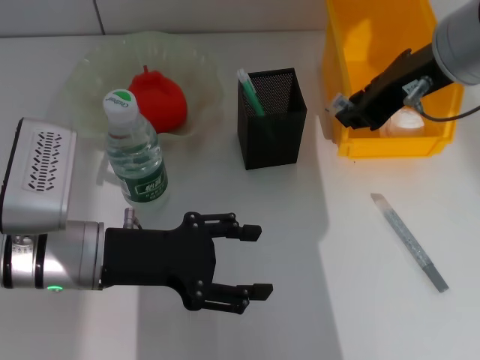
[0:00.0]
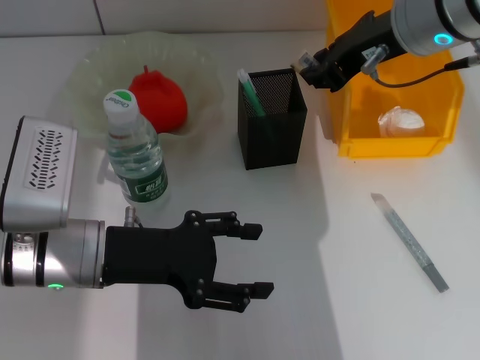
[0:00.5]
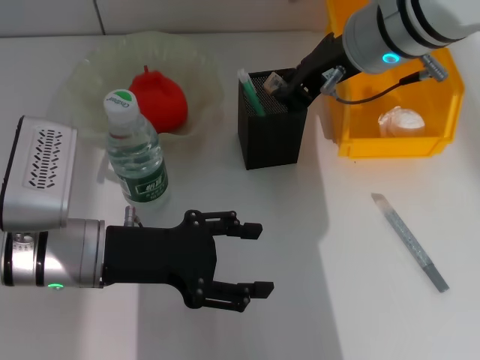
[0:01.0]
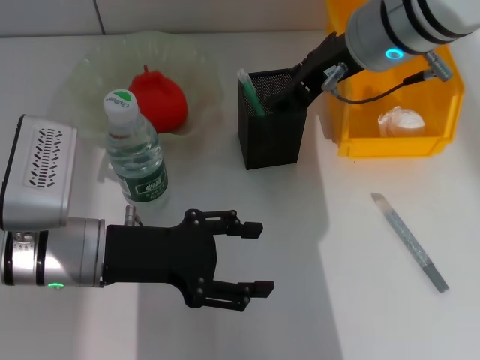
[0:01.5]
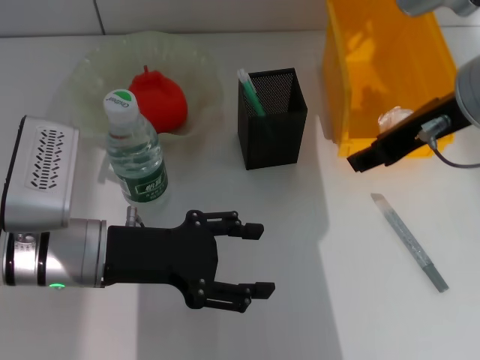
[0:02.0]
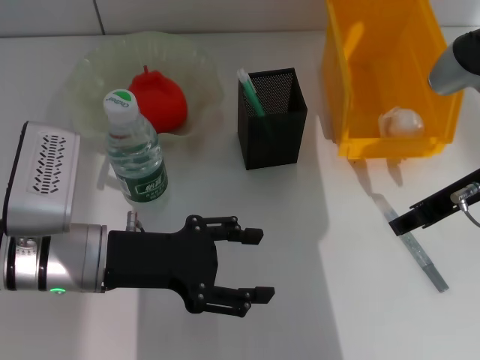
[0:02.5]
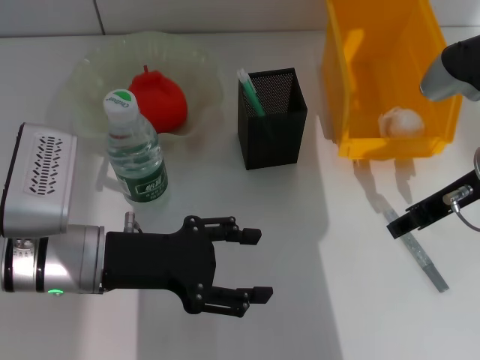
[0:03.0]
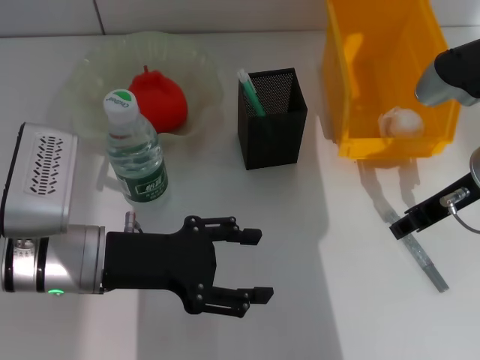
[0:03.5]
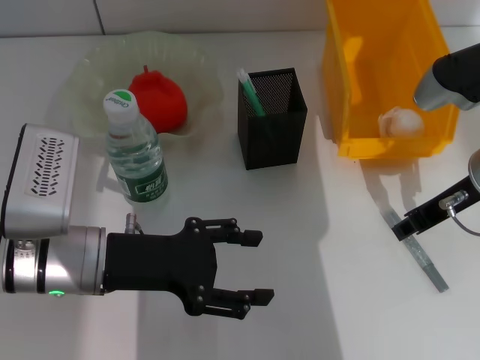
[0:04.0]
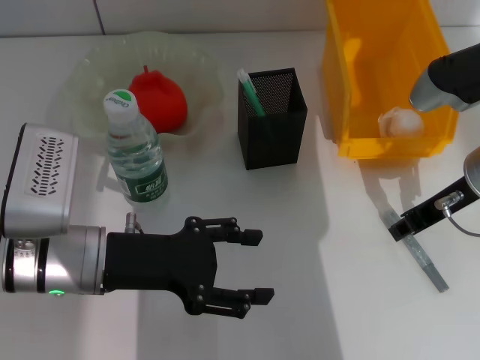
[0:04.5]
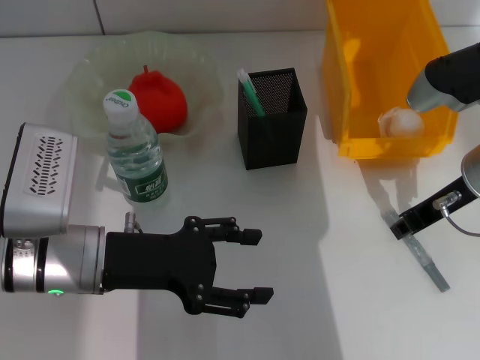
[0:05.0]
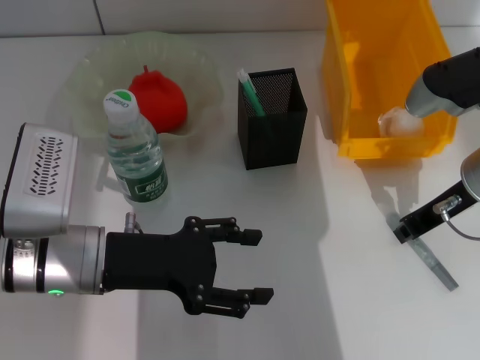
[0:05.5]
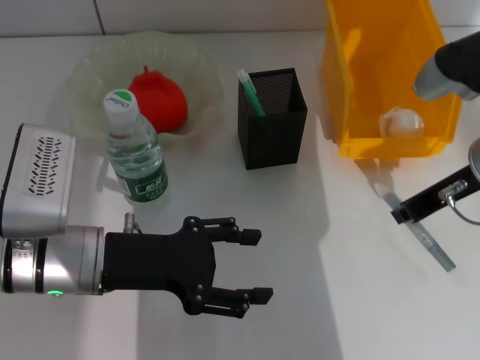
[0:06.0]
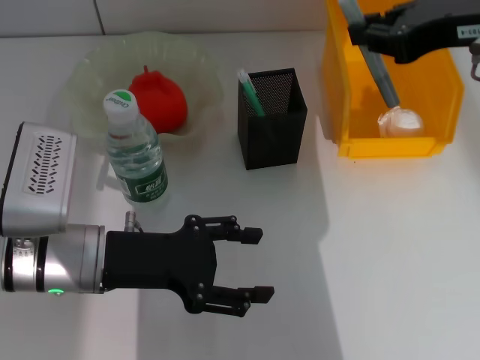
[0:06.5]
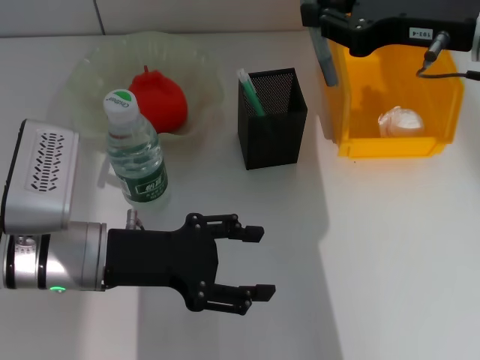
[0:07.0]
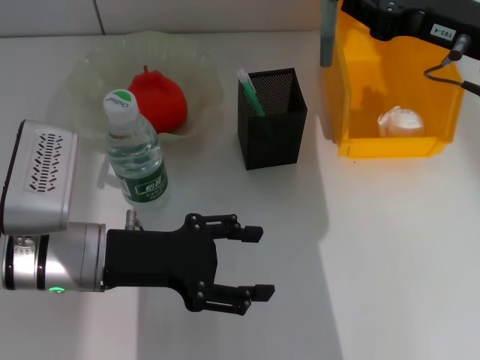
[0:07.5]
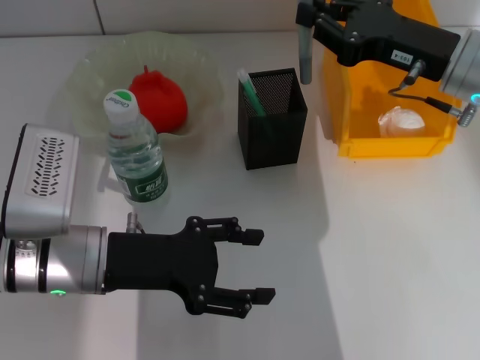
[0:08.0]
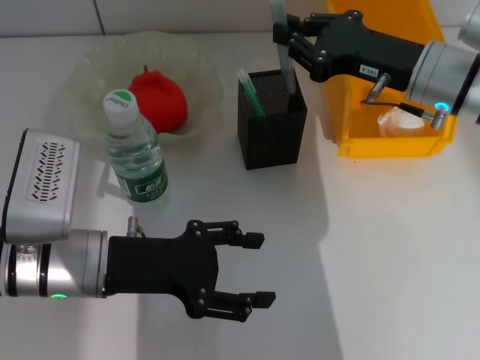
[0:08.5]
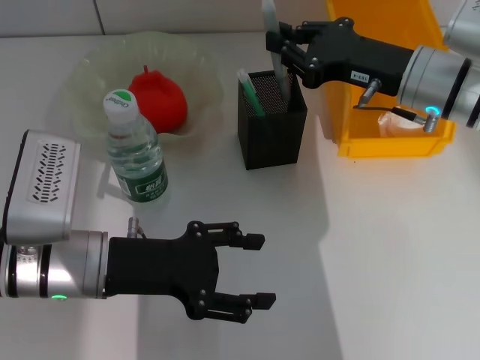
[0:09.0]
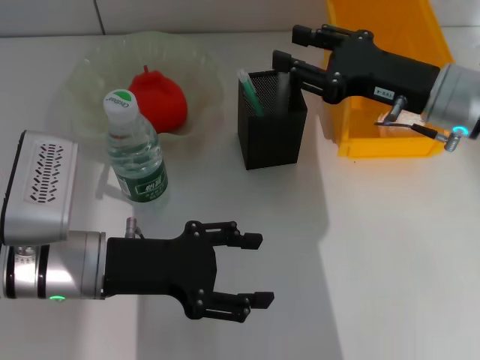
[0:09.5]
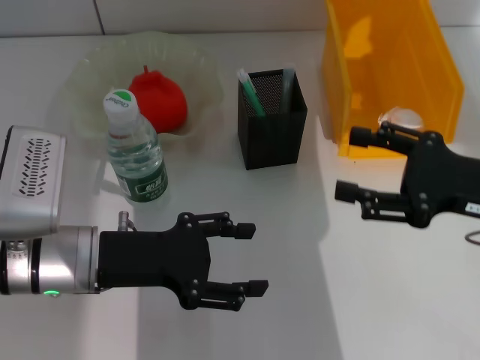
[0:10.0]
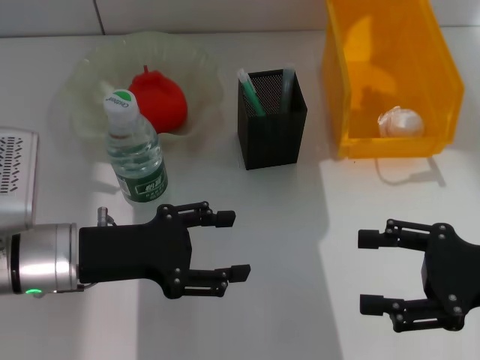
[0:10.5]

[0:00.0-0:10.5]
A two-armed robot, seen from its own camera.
Step, 0:02.0 to 0:05.5: Grab the gray glue with the right hand.
Step, 0:06.0 to 0:09.0: Place the gray glue into the pen holder with the right hand.
0:00.0 to 0:02.0: The right gripper opens up.
0:02.0 to 0:04.0: The right gripper goes approximately 10 cm downward.
0:04.0 to 0:06.5: The right gripper travels upward by about 15 cm.
0:06.5 to 0:08.5: The right gripper is displaced downward and forward by roughly 15 cm.
0:08.5 to 0:10.5: The right gripper moves backward and to the right, approximately 20 cm, and opens up.

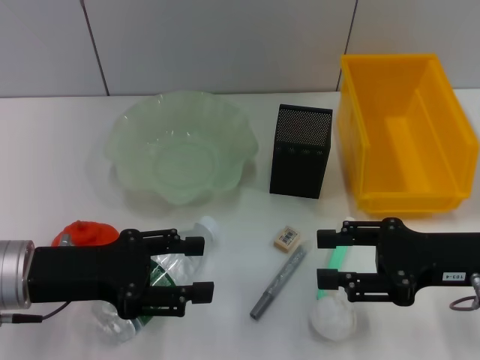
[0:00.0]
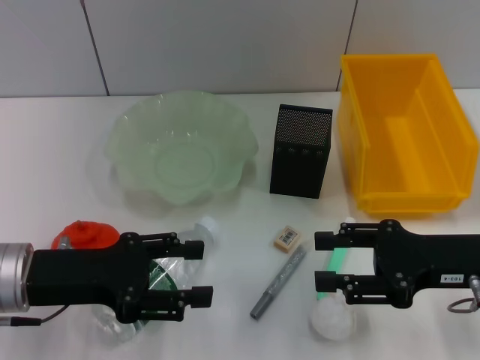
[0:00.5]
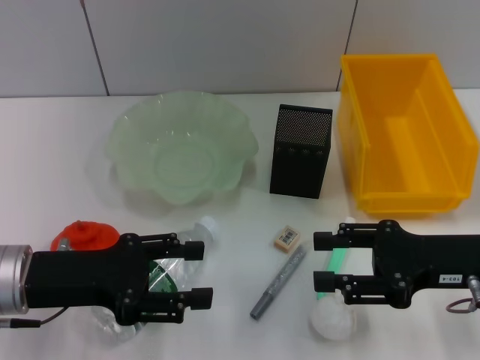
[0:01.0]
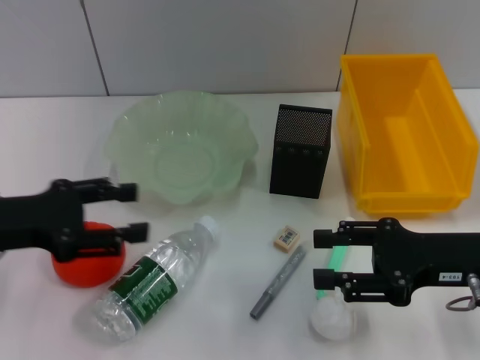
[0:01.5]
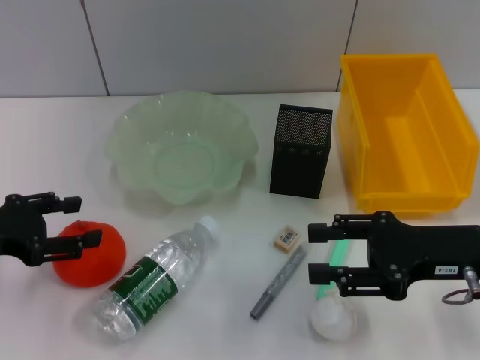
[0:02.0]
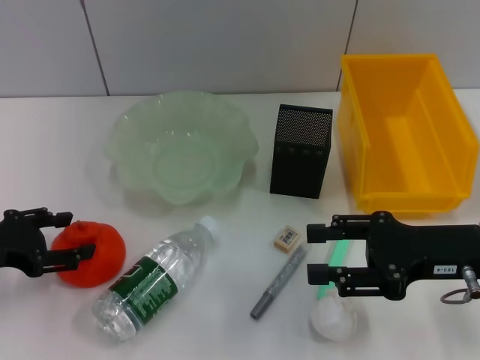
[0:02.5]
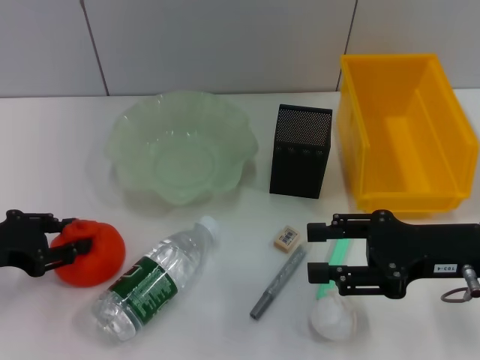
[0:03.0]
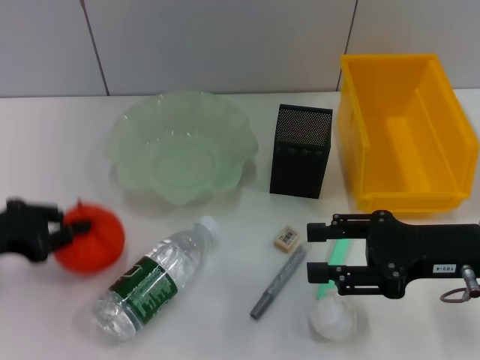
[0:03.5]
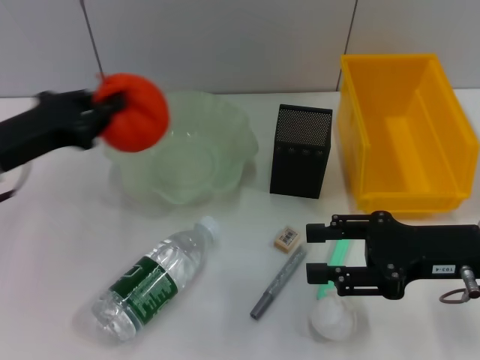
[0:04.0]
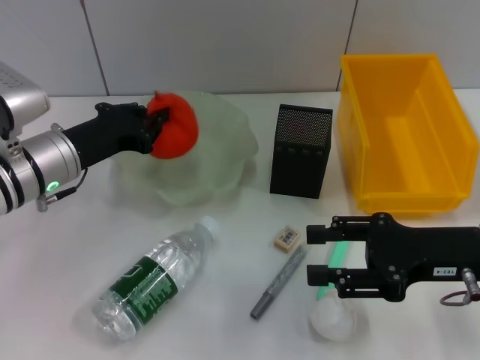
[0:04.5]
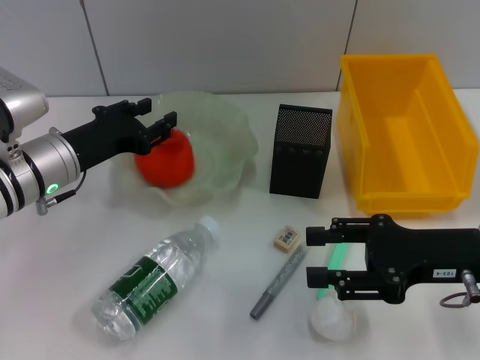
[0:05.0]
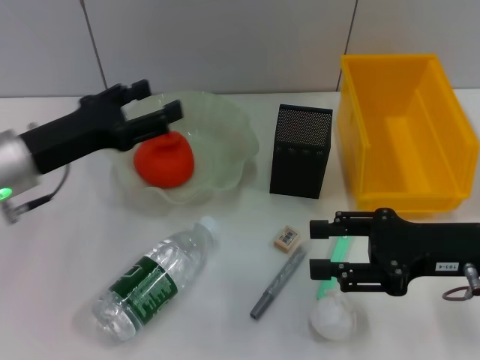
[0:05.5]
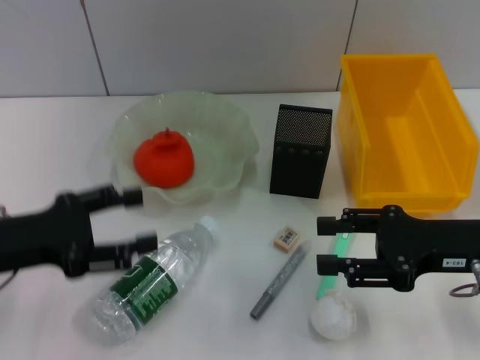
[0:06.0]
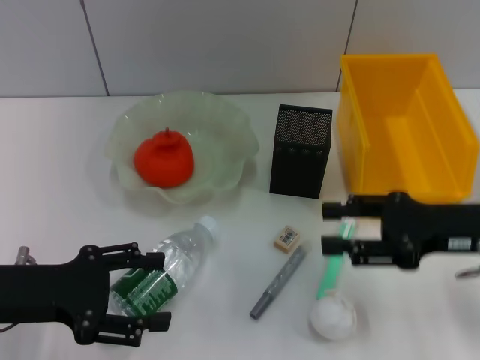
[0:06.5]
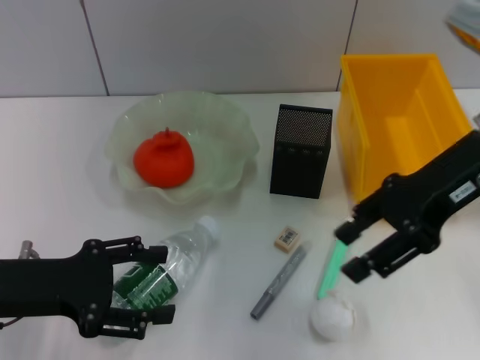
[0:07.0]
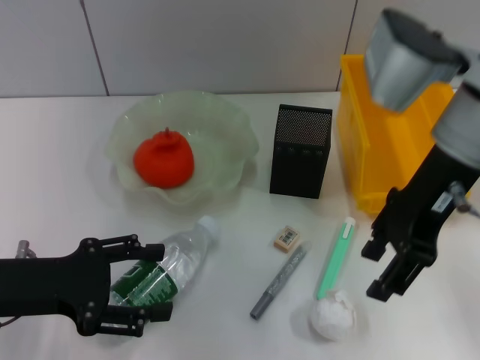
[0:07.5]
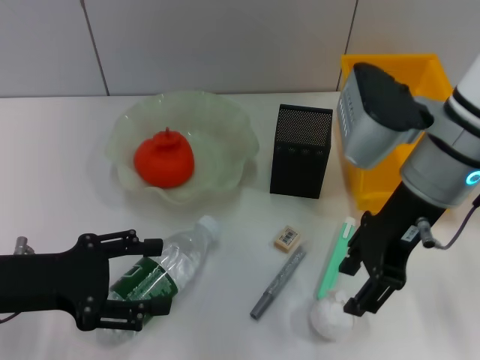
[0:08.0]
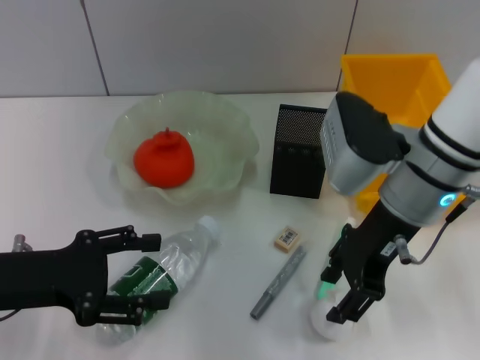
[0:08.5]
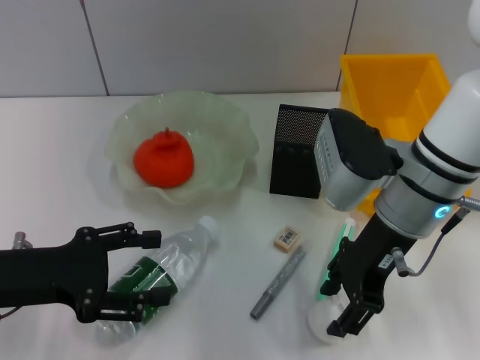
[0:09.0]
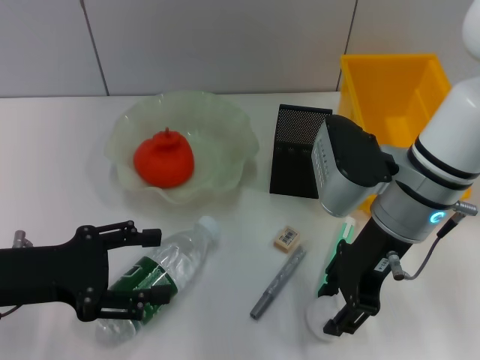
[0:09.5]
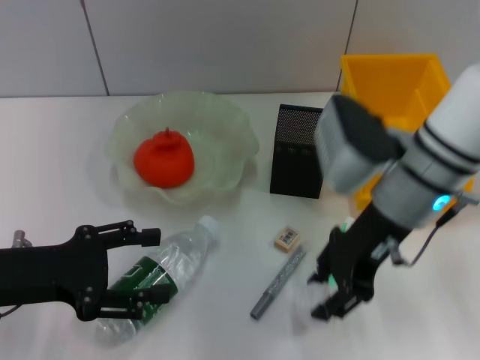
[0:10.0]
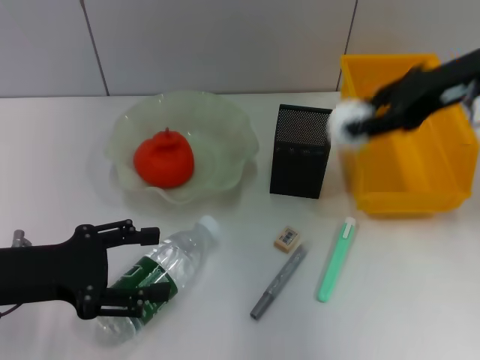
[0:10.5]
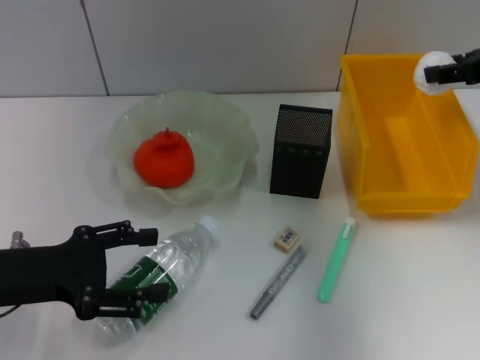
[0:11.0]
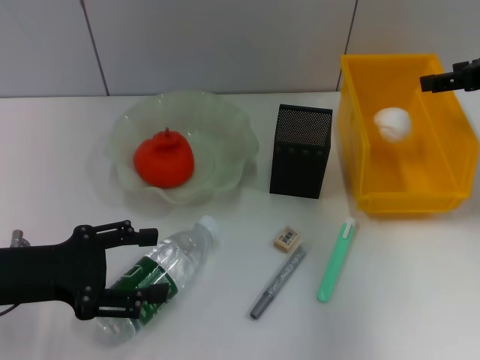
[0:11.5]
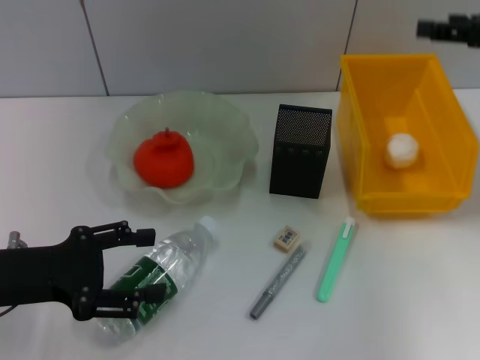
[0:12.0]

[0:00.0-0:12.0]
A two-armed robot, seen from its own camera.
Step, 0:00.0 to 0:03.0: Grab the orange with the left hand.
Step, 0:03.5 to 0:05.0: Place the orange into the fruit bowl with the left hand.
Step, 0:05.5 to 0:09.5: Grab the paper ball with the right hand.
Step, 0:10.0 to 0:11.0: Place the paper ball into the trash can with the right hand.
0:00.0 to 0:02.0: The left gripper shifts some 10 cm to the left.
0:02.0 to 0:04.0: The left gripper moves to the right, roughly 5 cm, and closes its fingers.
0:04.0 to 0:06.0: The left gripper heads backward, covering some 5 cm, and opens its fingers.
0:06.0 to 0:08.0: The right gripper shifts about 15 cm to the left, upward and forward.
0:08.0 to 0:10.0: There are only small adjustments of the grippers.
0:10.0 to 0:12.0: The right gripper shifts approximately 20 cm to the right, and opens.

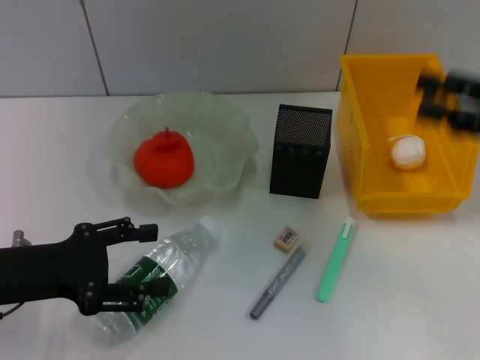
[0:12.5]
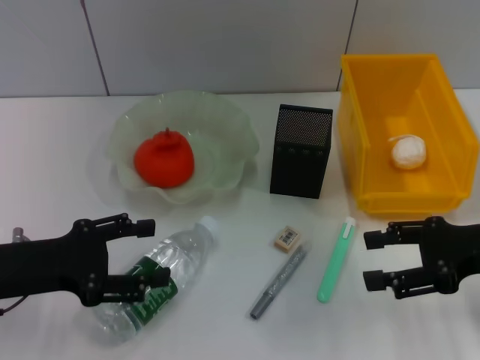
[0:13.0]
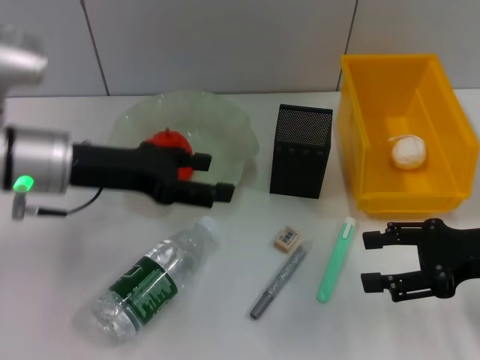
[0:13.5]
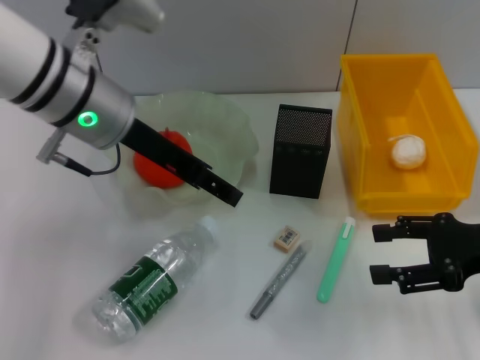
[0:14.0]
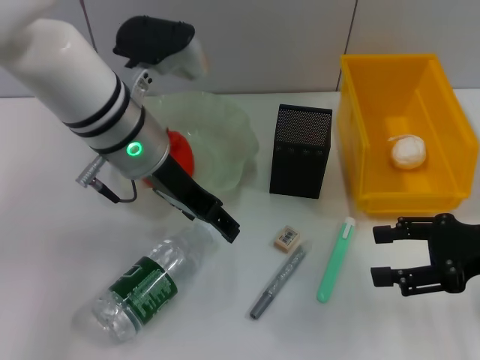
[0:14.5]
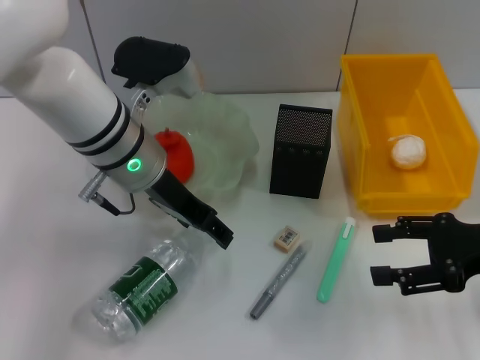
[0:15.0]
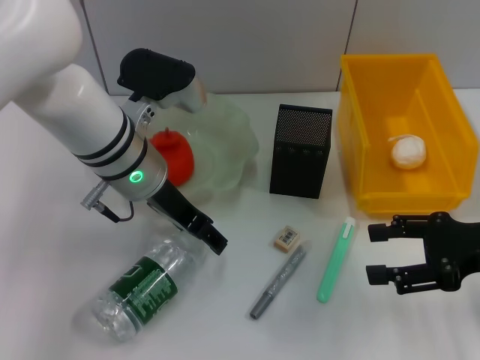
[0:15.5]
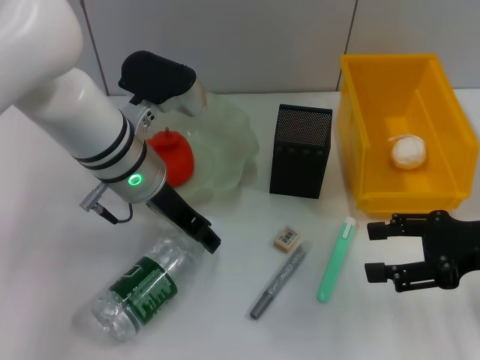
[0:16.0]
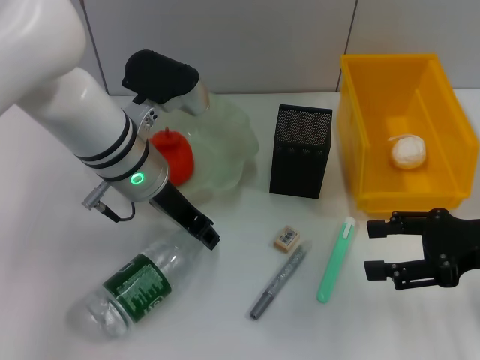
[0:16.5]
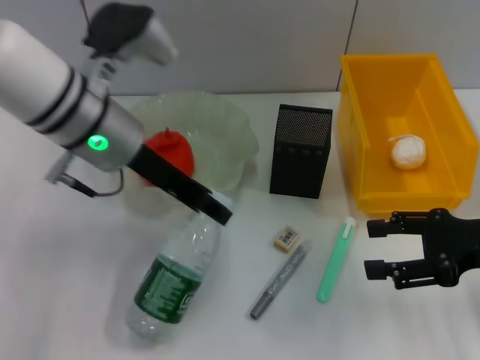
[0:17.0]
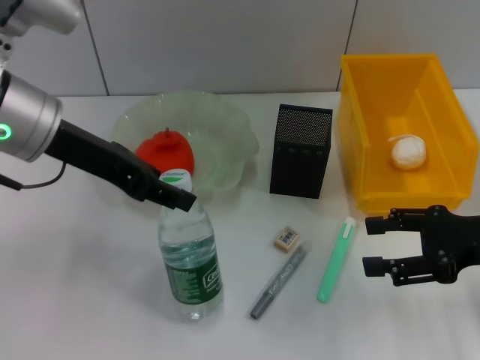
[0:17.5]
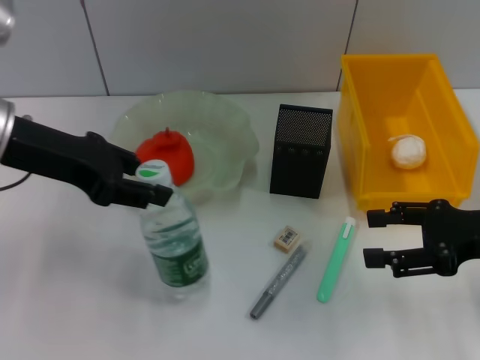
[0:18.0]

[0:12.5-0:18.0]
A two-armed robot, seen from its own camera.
Step, 0:12.5 to 0:16.5: Grab the water bottle with the left hand.
0:12.5 to 0:14.5: The right gripper travels downward by about 5 cm. The left gripper travels to the right, forward and upward by roughly 20 cm.
0:14.5 to 0:16.0: The grippers make only small movements.
0:16.0 to 0:18.0: The left gripper travels to the left and upward by roughly 15 cm, and closes up.
